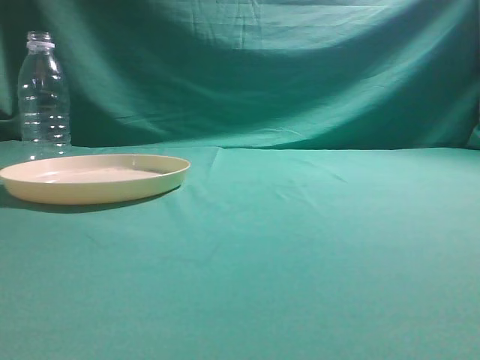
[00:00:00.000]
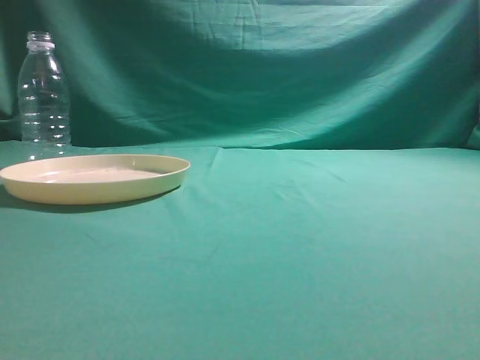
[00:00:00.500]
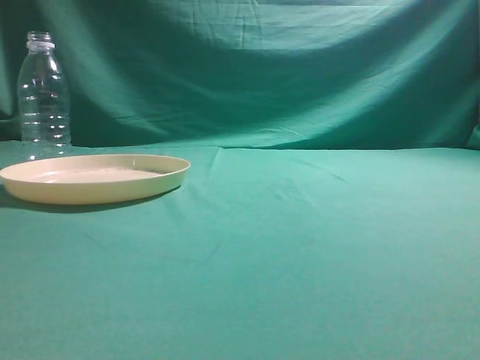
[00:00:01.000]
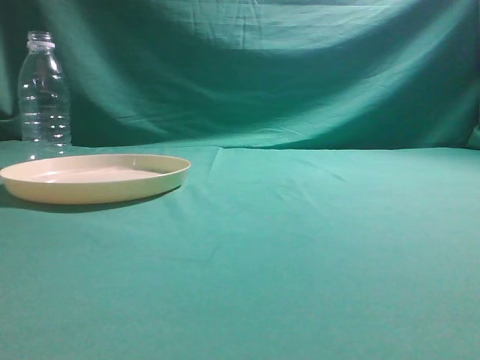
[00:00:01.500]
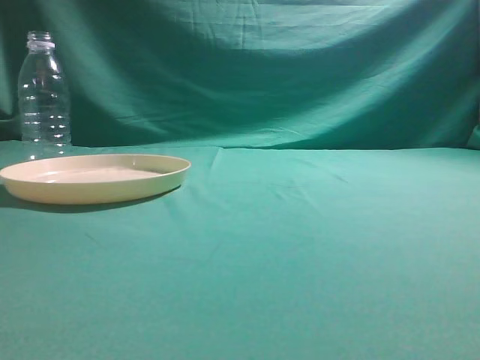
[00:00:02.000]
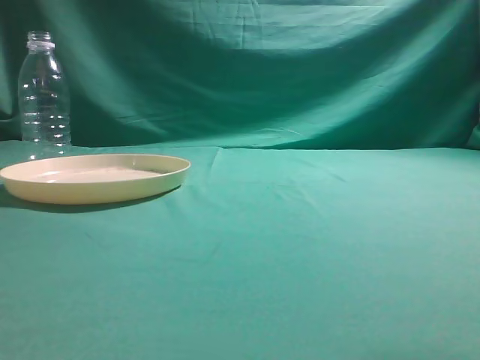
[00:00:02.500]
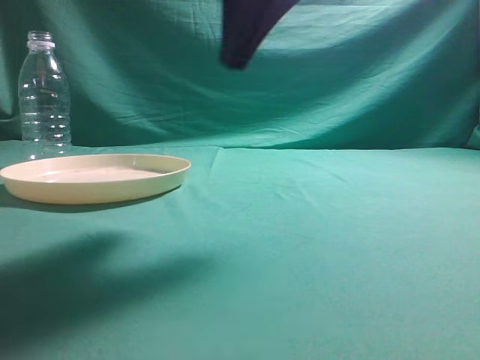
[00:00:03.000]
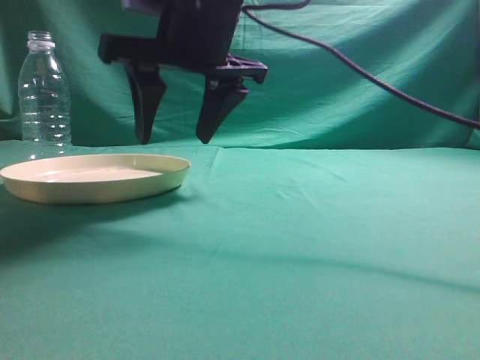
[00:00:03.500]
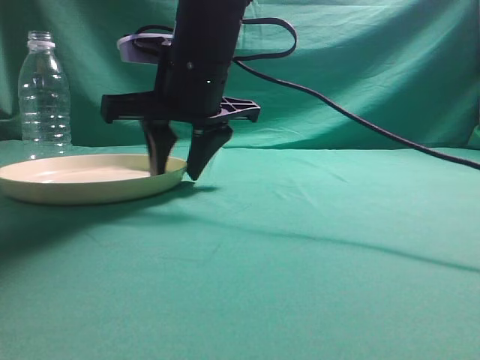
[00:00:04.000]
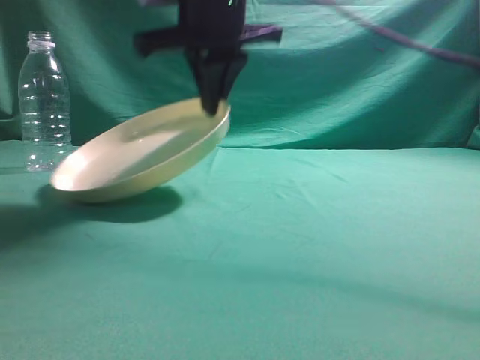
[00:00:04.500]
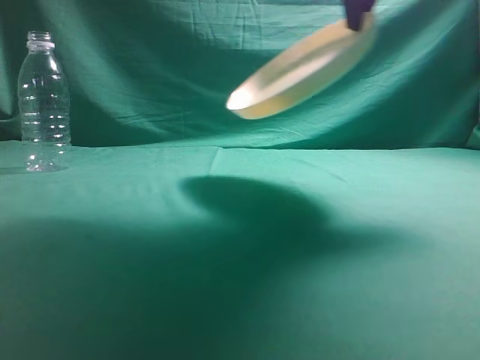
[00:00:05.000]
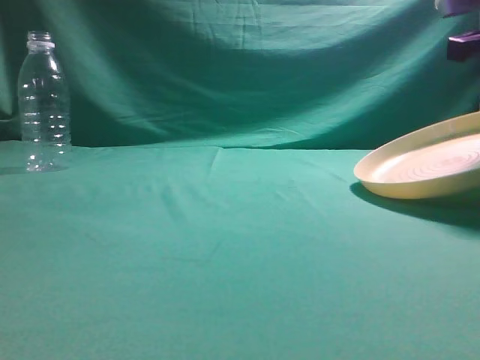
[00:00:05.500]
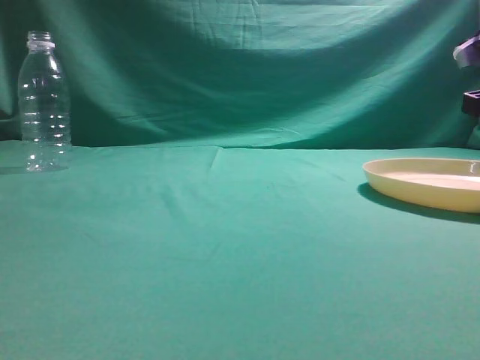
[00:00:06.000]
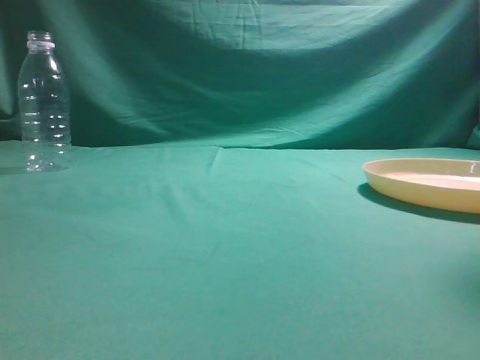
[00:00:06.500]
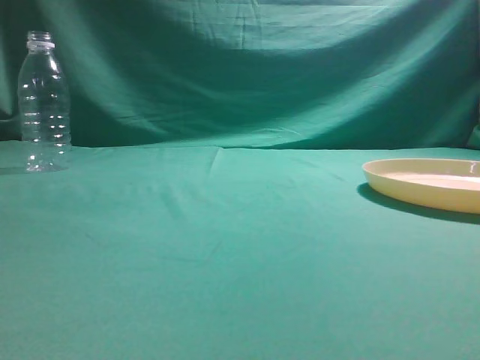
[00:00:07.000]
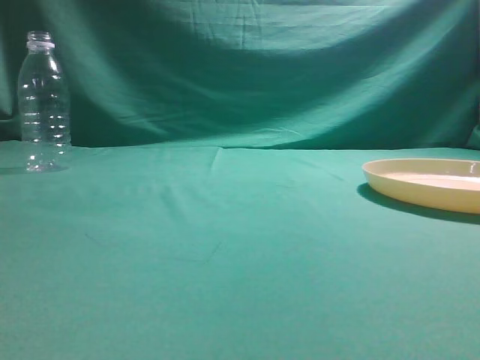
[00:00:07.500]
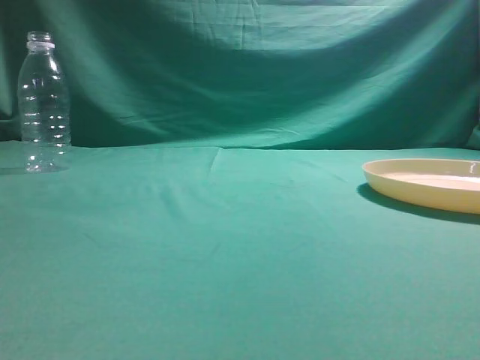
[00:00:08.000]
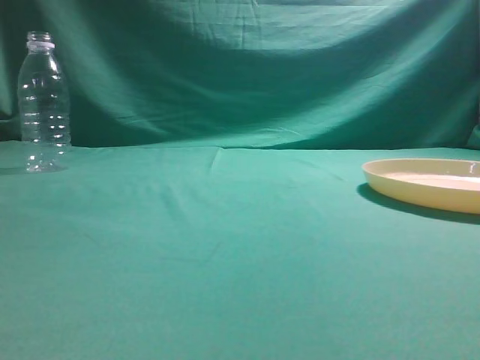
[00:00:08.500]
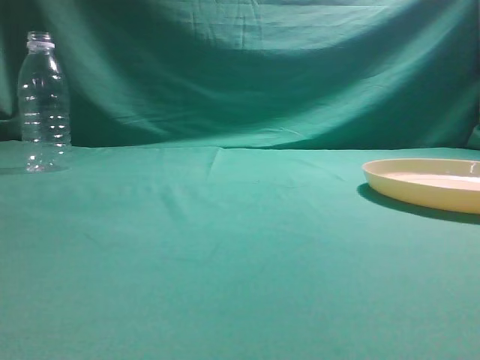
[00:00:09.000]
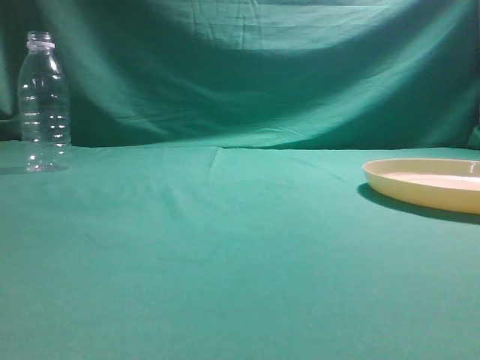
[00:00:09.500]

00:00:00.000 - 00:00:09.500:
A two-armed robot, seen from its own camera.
Step, 00:00:00.000 - 00:00:04.500: Pick the container that can hold fruits.
Step, 00:00:05.000 - 00:00:06.000: Move the picked object to the right side of the table.
00:00:02.000 - 00:00:04.000: The right gripper goes about 40 cm to the left and forward, and opens its fingers.
00:00:04.000 - 00:00:05.500: The right gripper travels to the right by approximately 30 cm, and closes its fingers.
00:00:05.500 - 00:00:07.500: The right gripper heads backward and upward, covering about 35 cm, and opens, then closes once more.
